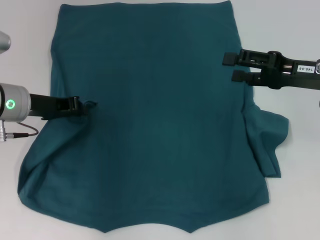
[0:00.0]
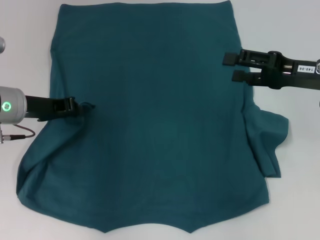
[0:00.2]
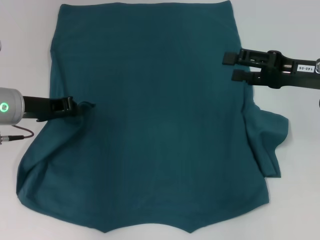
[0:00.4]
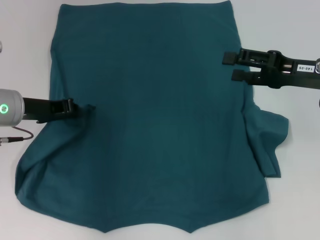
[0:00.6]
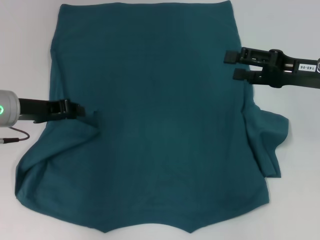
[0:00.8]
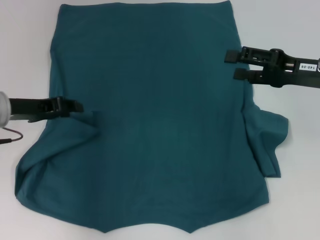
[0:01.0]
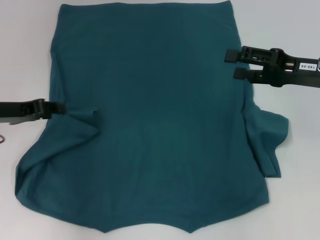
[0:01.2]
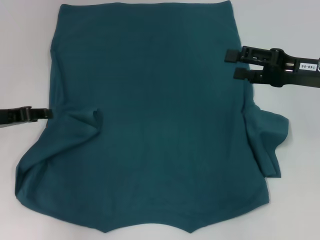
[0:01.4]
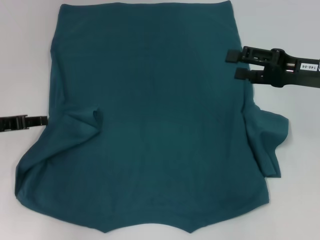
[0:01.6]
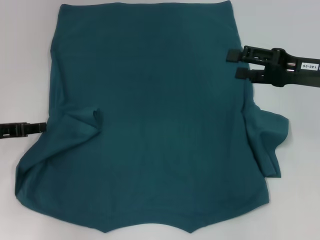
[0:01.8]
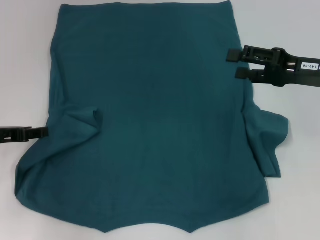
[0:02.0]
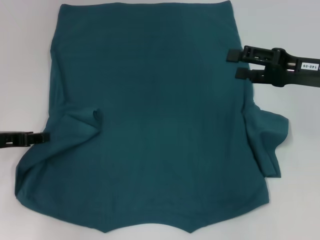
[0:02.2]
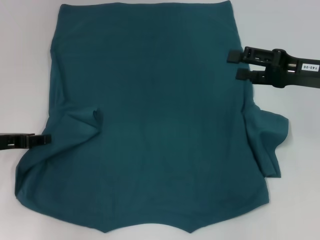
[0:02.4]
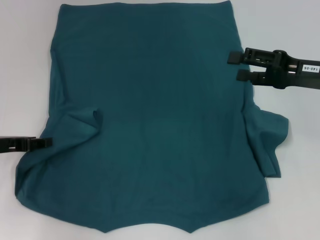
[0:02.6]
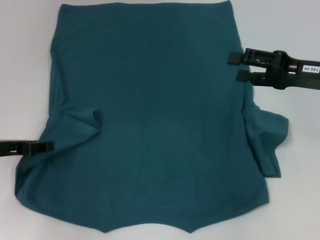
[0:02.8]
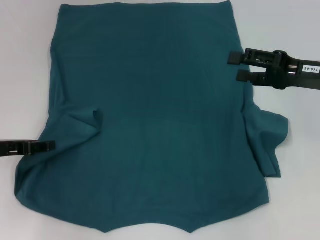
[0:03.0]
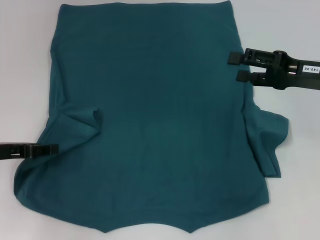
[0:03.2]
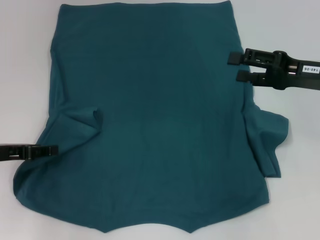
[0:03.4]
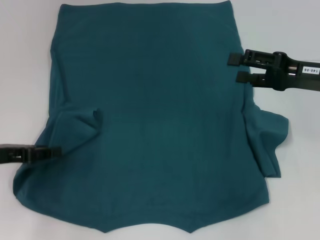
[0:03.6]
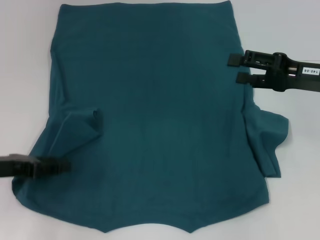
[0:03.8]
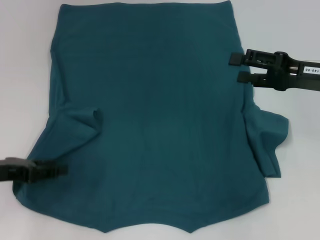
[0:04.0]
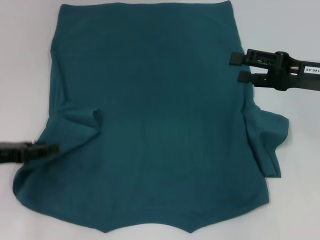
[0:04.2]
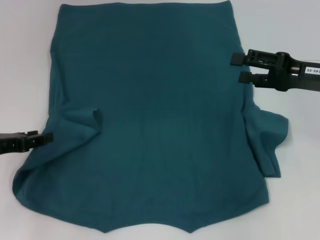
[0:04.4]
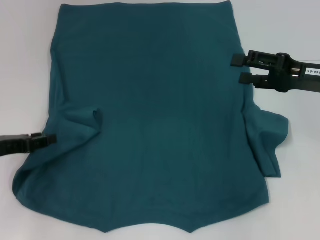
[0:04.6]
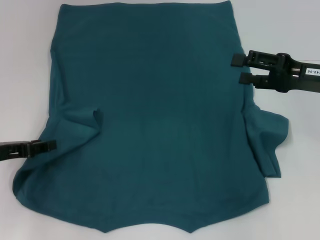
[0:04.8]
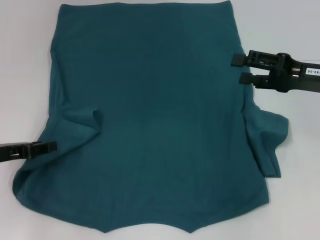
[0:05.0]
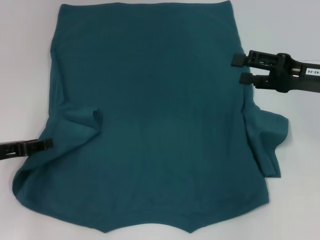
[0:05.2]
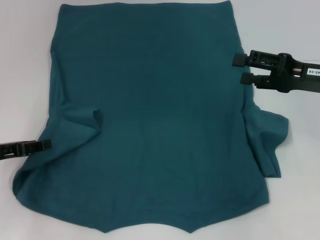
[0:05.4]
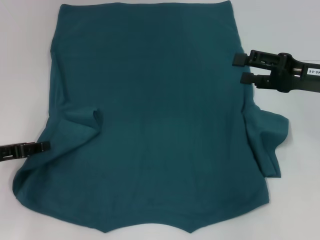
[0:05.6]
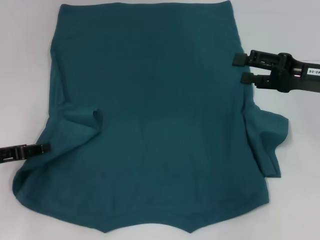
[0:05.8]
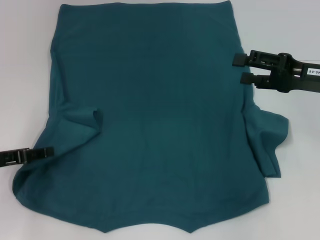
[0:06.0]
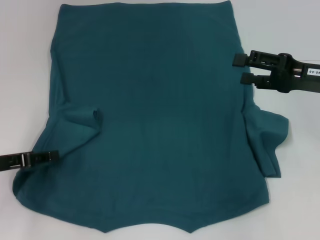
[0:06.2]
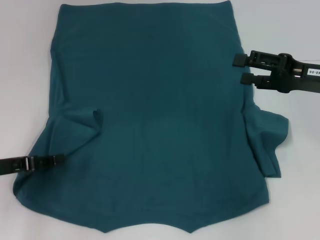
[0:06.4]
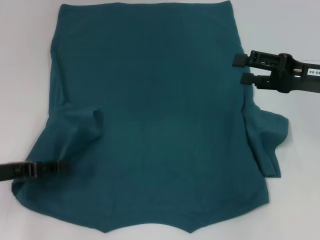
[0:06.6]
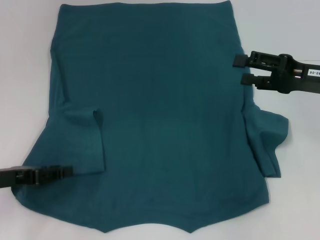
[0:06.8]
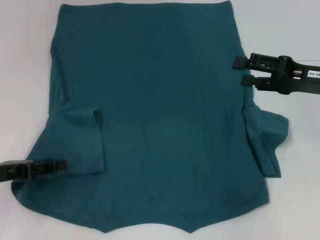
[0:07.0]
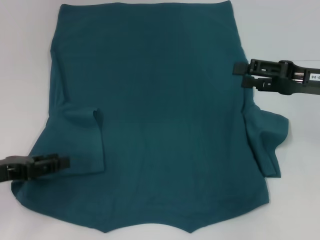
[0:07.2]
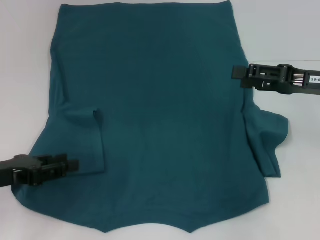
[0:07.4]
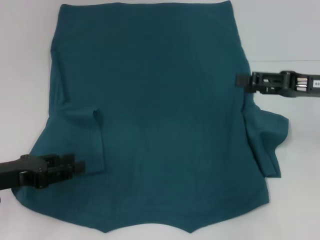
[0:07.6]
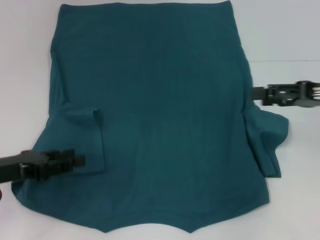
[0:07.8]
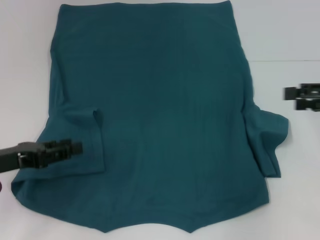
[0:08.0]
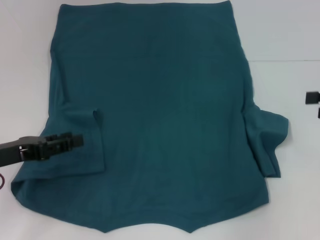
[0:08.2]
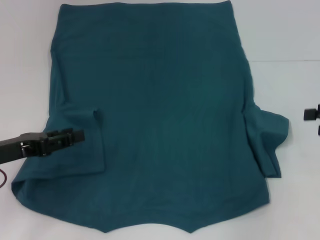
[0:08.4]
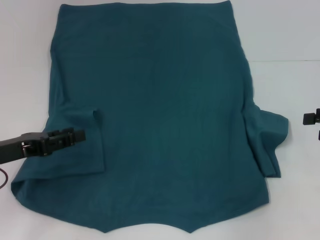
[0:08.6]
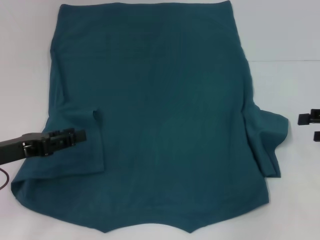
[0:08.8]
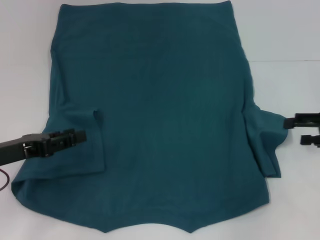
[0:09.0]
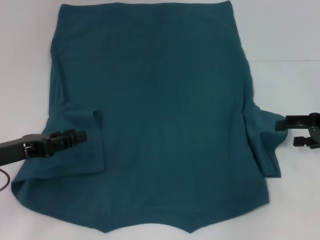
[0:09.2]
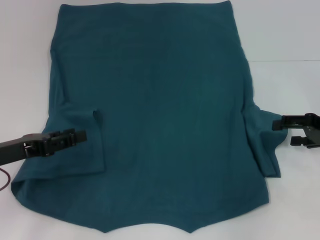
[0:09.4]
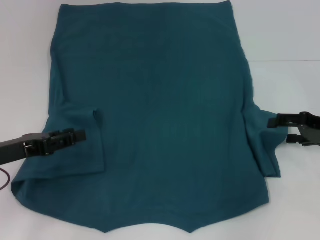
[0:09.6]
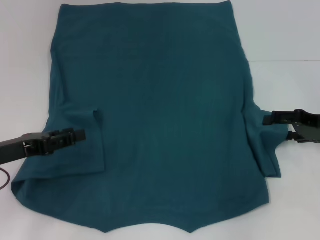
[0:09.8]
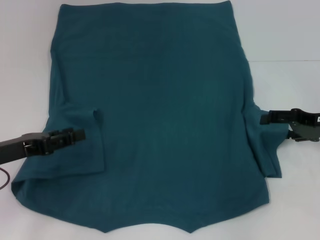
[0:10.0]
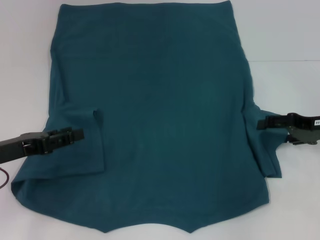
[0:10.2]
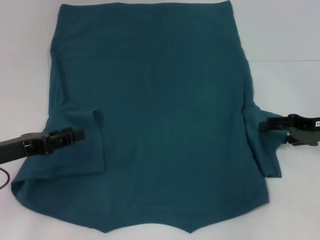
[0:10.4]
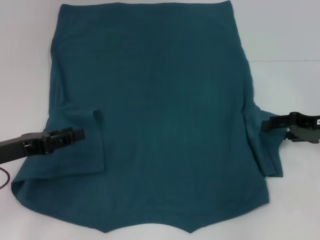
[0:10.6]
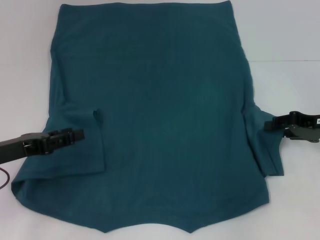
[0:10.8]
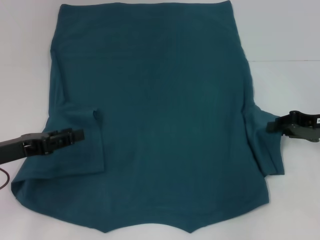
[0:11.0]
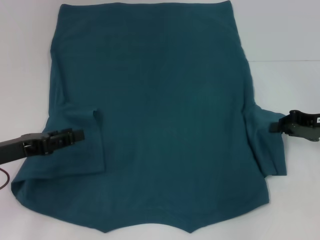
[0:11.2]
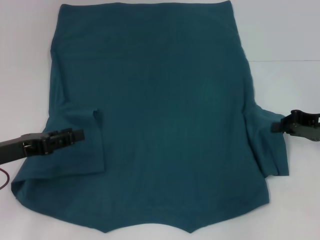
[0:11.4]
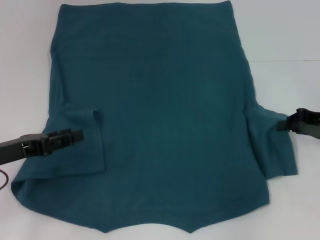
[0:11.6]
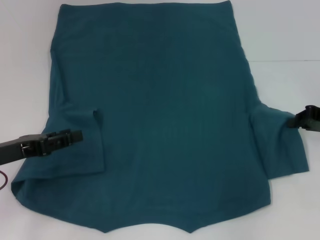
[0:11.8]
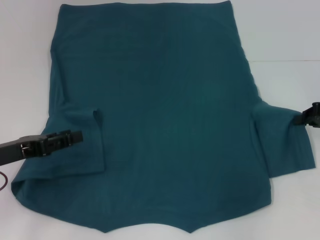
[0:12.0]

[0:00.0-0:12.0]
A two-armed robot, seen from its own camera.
Step, 0:00.0 to 0:07.6: Fold the bottom left sleeve with your left hand.
0:00.0 to 0:01.6: The left gripper is displaced to the left by about 10 cm, and opens up.
0:01.6 to 0:03.0: There are only small adjustments of the grippers.
0:03.0 to 0:06.0: There are only small adjustments of the grippers.
0:07.6 to 0:09.0: The right gripper goes about 5 cm to the right.
0:09.0 to 0:10.4: The grippers make only small movements.
0:10.4 to 0:12.0: The right gripper closes up.

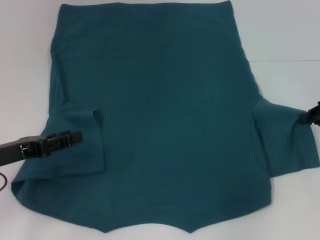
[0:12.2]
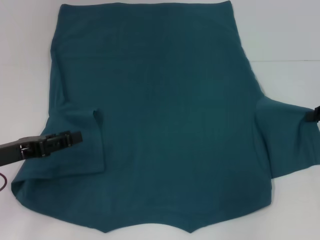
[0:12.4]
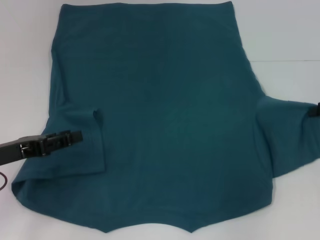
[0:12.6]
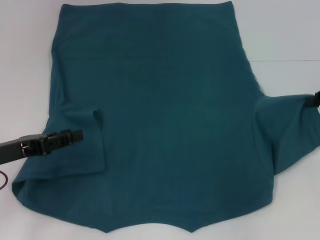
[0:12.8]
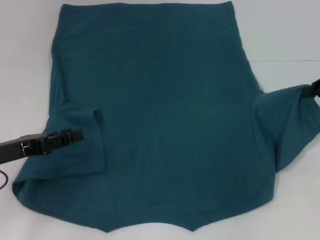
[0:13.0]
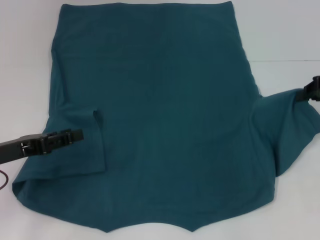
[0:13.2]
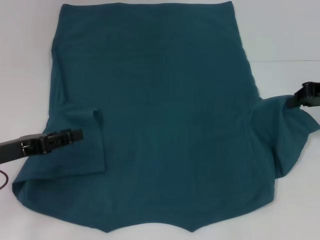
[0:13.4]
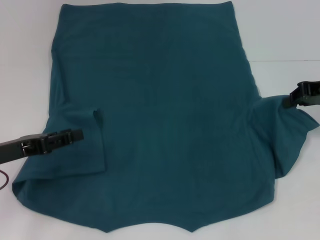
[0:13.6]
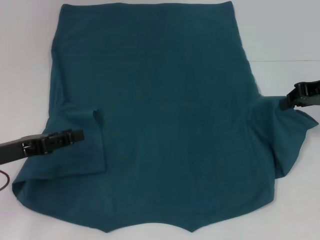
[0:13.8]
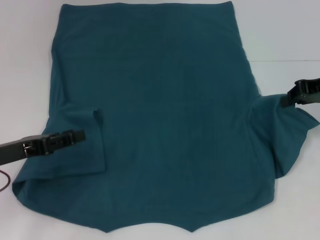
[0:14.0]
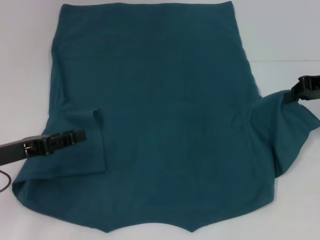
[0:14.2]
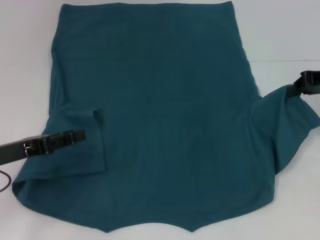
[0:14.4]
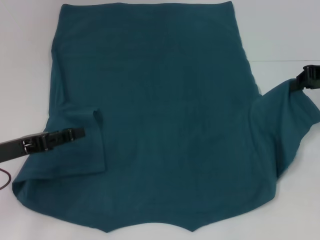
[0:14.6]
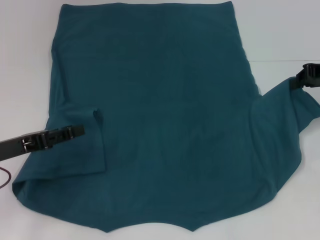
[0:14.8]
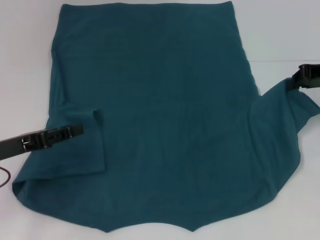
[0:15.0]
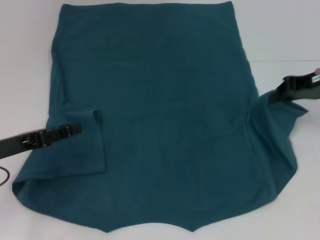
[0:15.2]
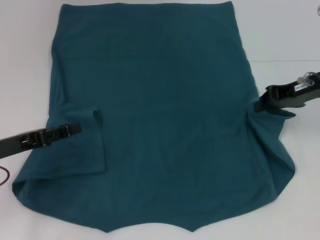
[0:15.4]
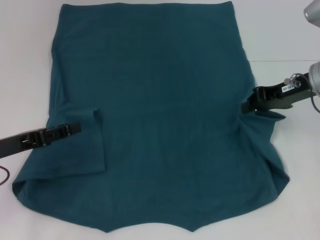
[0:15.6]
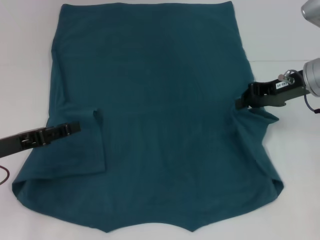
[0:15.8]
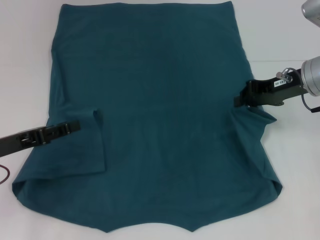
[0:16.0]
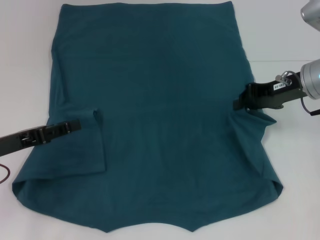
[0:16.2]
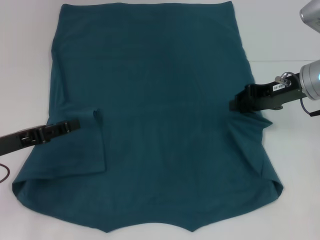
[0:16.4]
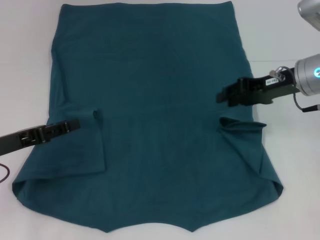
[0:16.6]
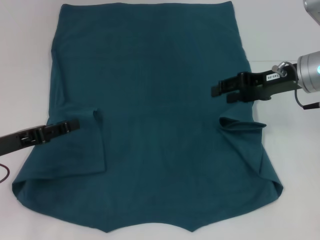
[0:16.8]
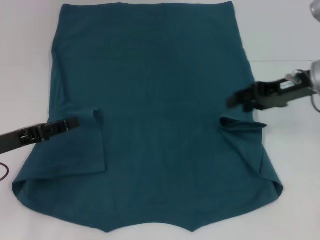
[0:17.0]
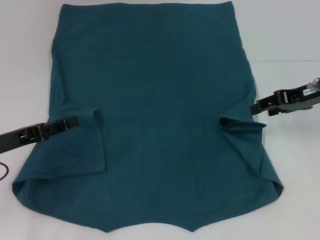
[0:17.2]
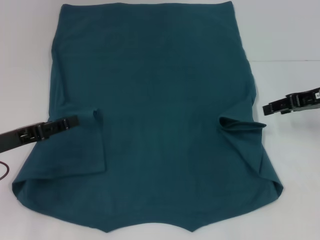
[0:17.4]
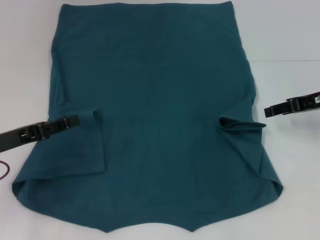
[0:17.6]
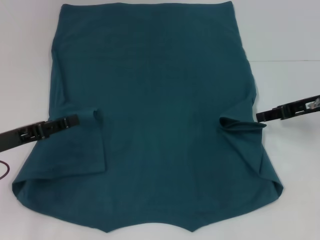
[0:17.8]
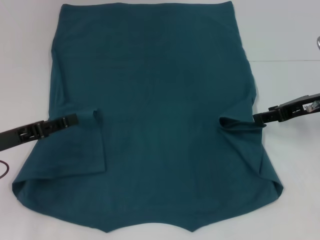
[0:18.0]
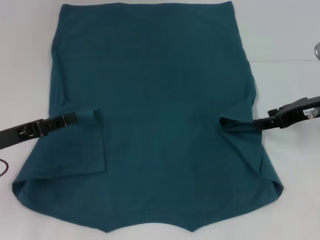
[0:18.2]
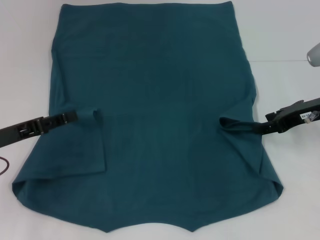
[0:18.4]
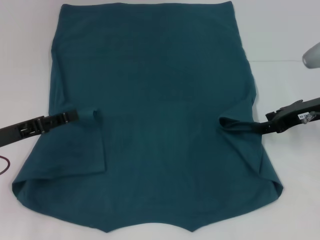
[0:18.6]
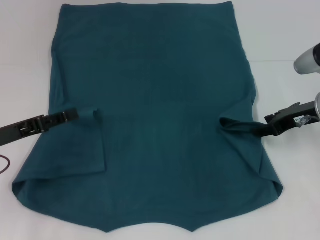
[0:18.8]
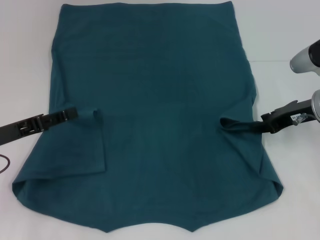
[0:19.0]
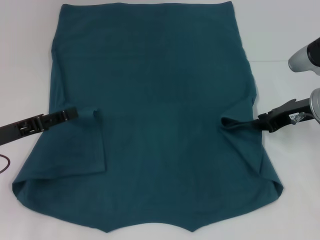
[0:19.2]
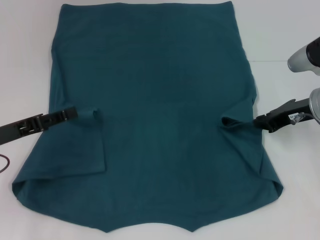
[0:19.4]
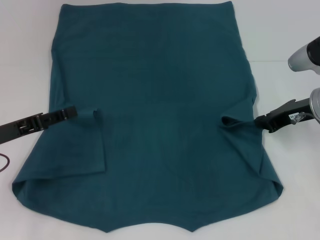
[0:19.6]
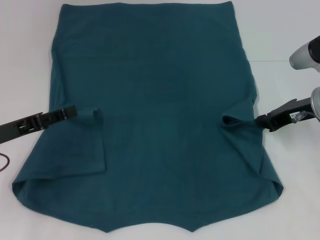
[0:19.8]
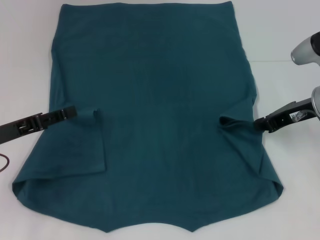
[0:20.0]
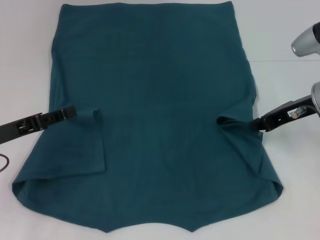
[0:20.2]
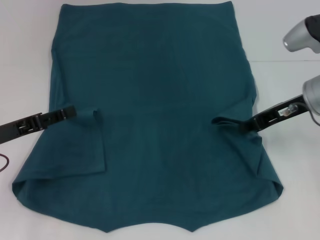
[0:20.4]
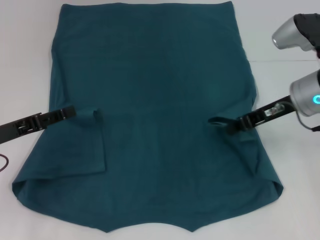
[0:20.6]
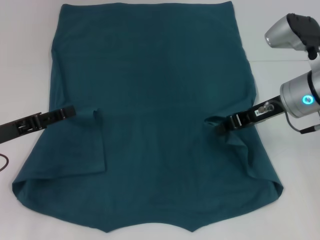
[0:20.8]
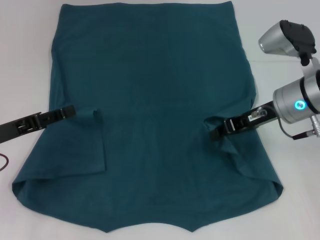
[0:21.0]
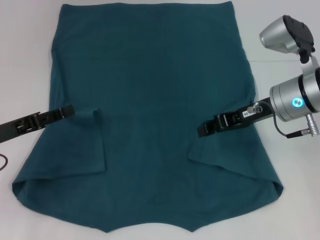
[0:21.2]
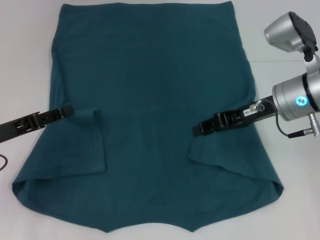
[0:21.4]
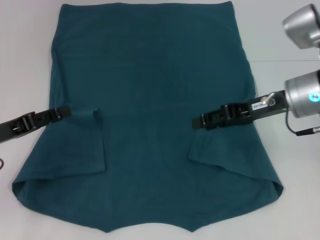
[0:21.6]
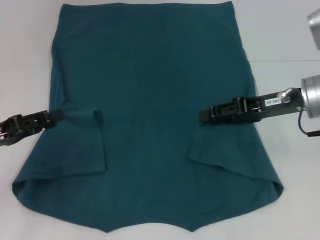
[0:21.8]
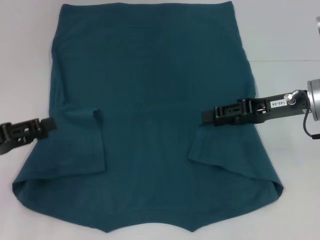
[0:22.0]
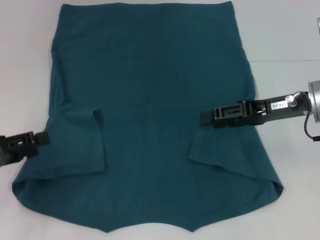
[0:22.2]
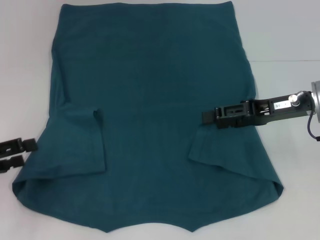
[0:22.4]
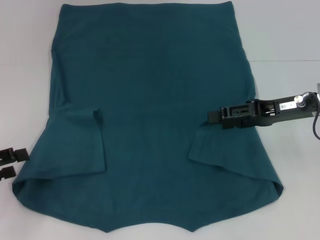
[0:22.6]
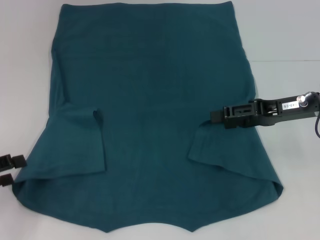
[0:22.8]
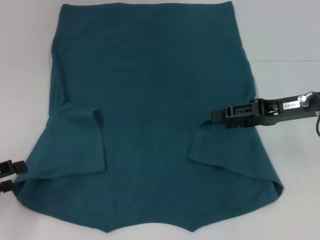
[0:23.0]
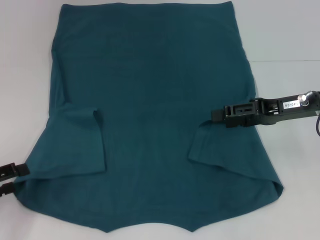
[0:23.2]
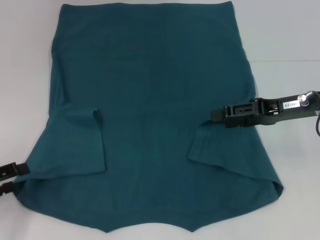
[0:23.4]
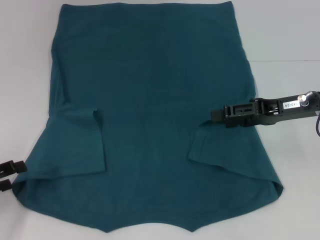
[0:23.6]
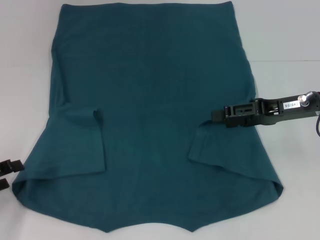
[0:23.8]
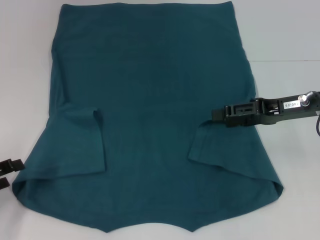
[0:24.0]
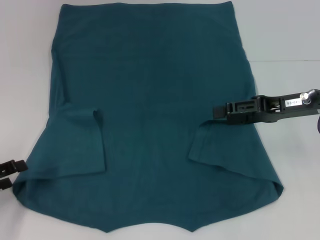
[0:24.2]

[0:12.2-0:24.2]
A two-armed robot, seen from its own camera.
Step, 0:12.2 to 0:23.4: Fold the bottom right sleeve to the right.
0:12.2 to 0:13.8: The right gripper goes about 5 cm upward and to the left.
0:13.8 to 0:15.2: There are only small adjustments of the grippers.
0:15.2 to 0:16.6: The right gripper moves to the left, roughly 5 cm.
0:16.6 to 0:18.2: The right gripper travels to the right by some 5 cm.
0:18.2 to 0:19.8: The right gripper closes its fingers.
0:19.8 to 0:21.2: The right gripper is displaced to the left by some 5 cm.
0:21.2 to 0:22.6: The right gripper is displaced to the right by about 5 cm, and opens. Meanwhile the left gripper heads backward and to the left, covering roughly 10 cm.
0:22.6 to 0:24.2: The grippers make only small movements.
